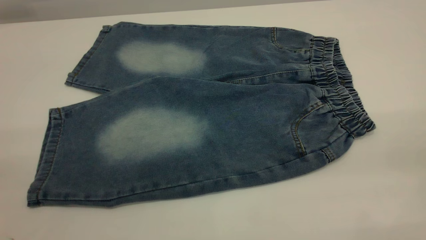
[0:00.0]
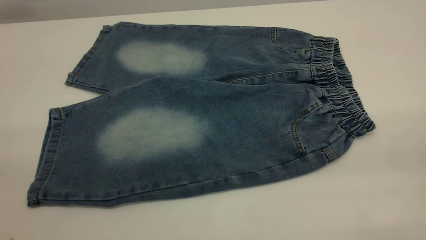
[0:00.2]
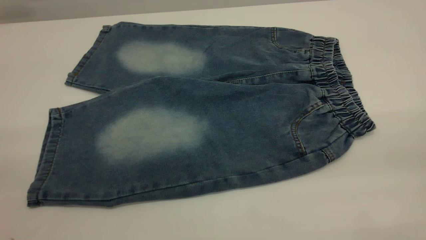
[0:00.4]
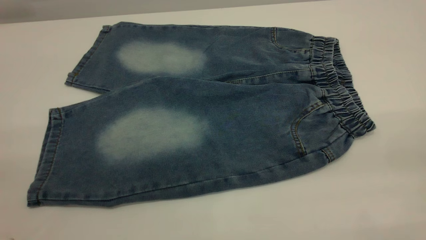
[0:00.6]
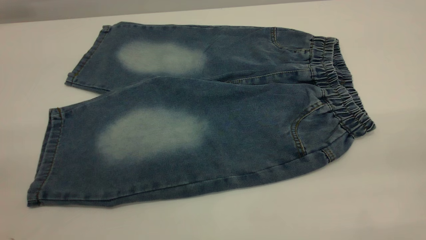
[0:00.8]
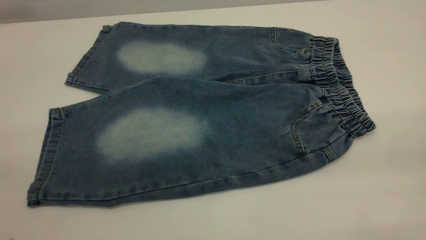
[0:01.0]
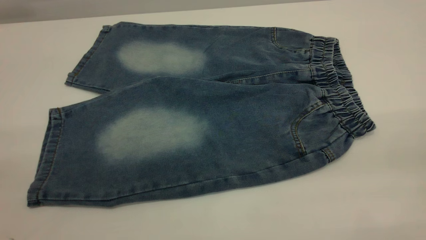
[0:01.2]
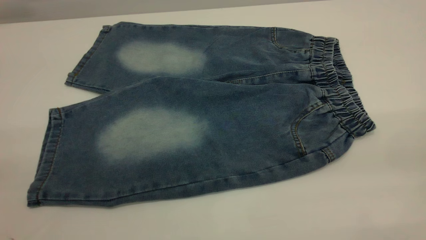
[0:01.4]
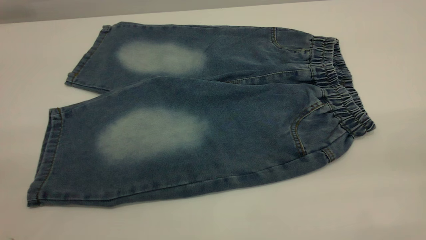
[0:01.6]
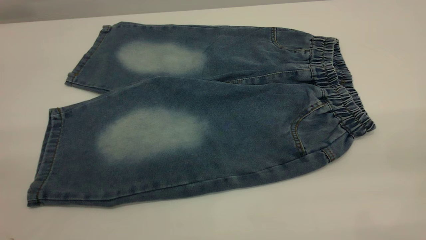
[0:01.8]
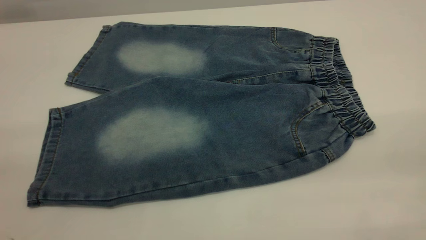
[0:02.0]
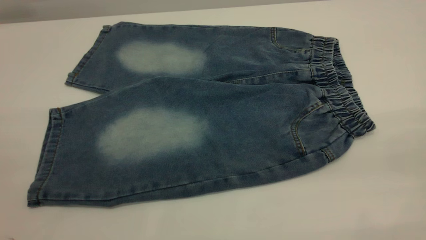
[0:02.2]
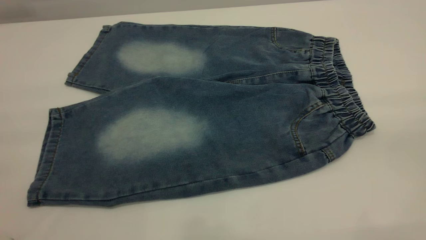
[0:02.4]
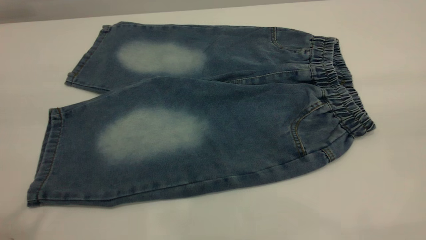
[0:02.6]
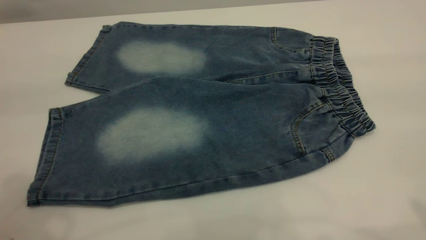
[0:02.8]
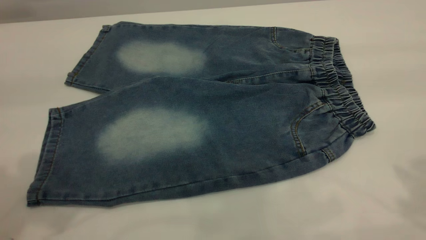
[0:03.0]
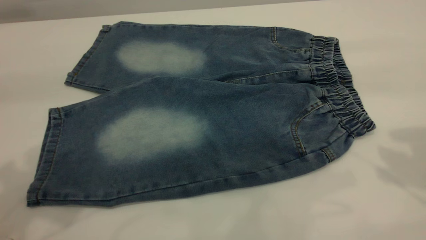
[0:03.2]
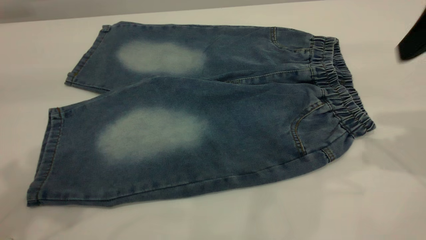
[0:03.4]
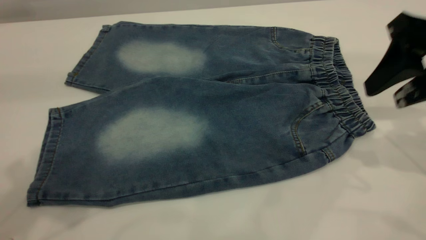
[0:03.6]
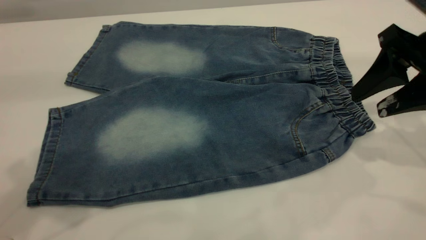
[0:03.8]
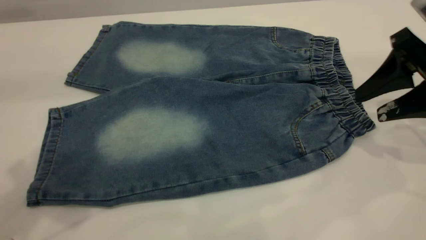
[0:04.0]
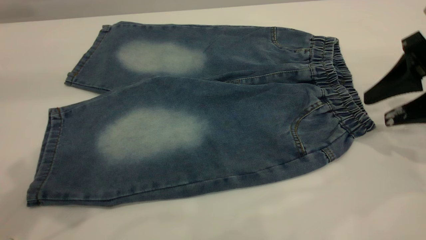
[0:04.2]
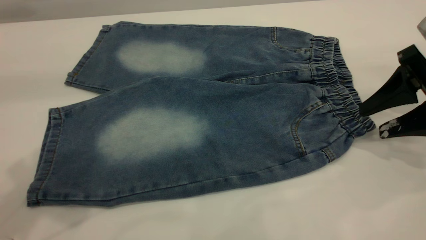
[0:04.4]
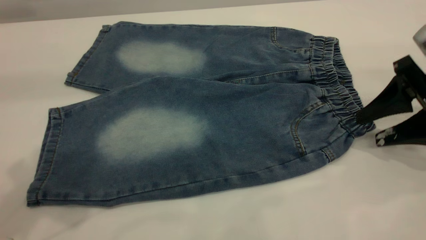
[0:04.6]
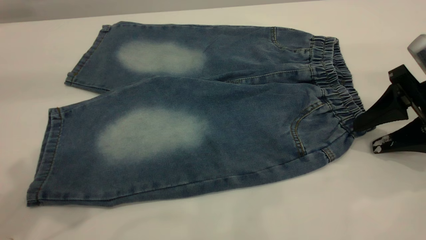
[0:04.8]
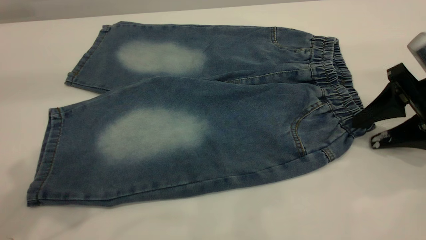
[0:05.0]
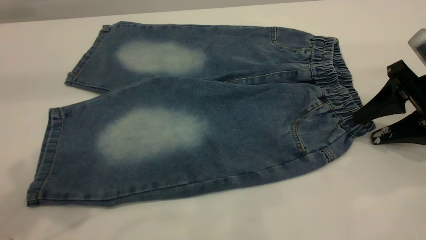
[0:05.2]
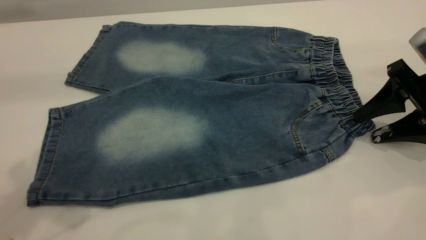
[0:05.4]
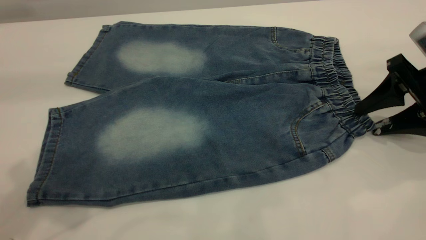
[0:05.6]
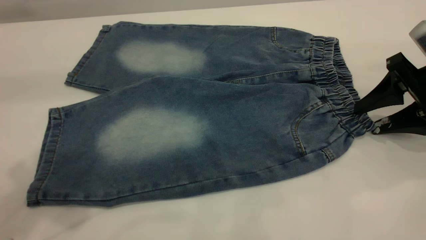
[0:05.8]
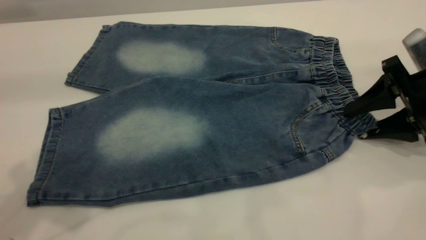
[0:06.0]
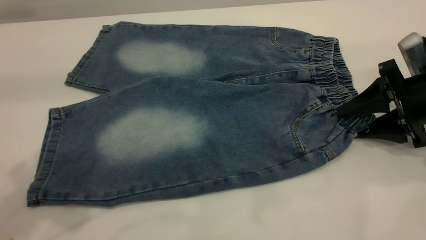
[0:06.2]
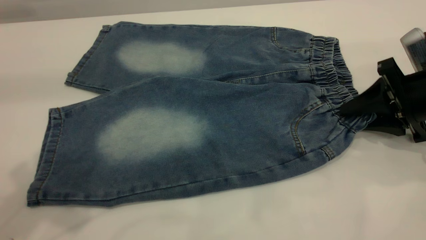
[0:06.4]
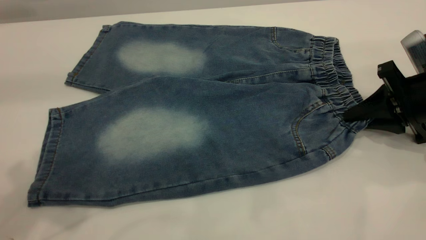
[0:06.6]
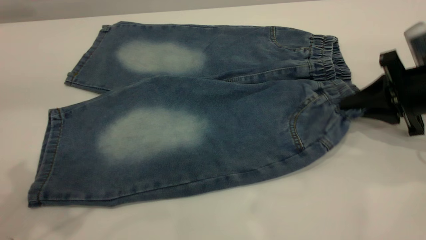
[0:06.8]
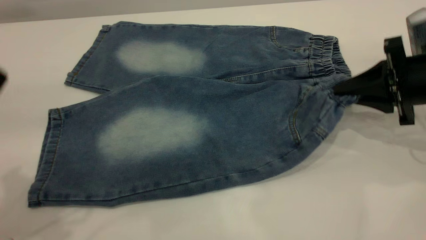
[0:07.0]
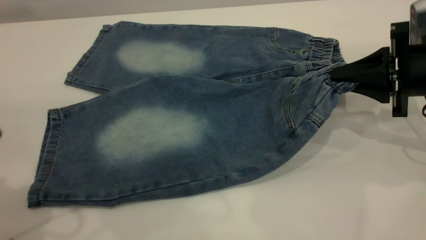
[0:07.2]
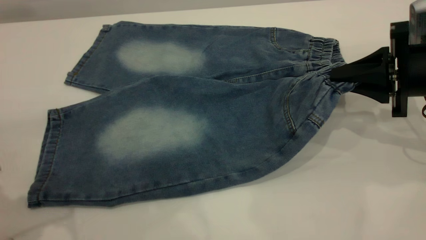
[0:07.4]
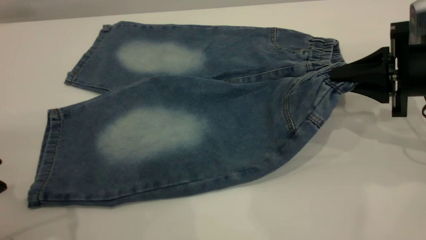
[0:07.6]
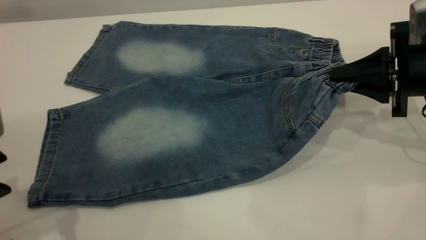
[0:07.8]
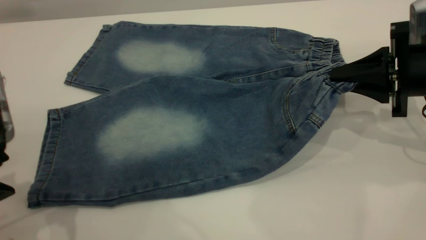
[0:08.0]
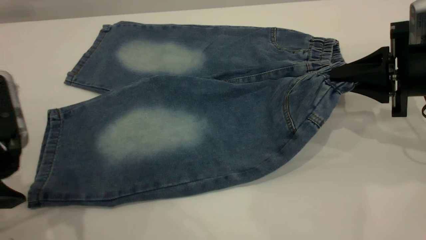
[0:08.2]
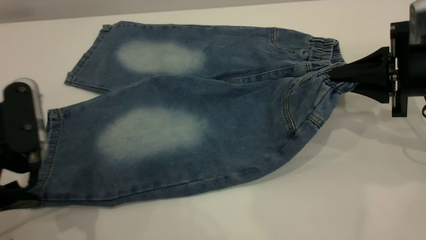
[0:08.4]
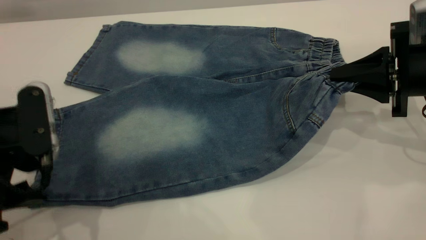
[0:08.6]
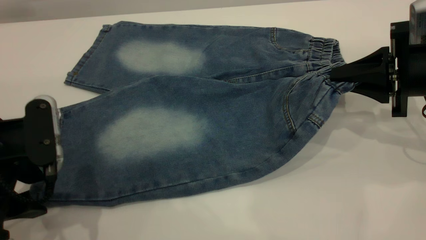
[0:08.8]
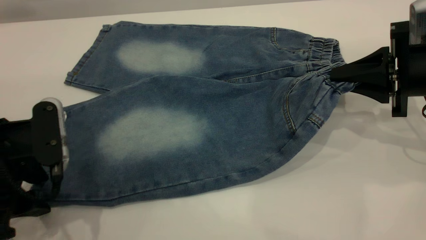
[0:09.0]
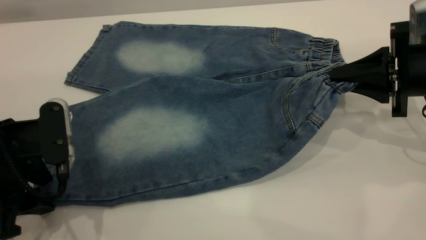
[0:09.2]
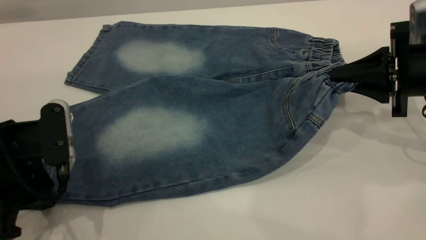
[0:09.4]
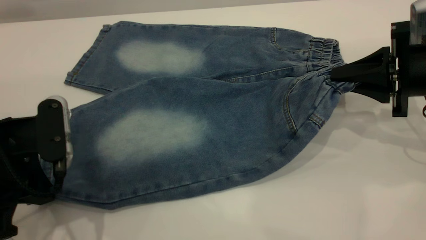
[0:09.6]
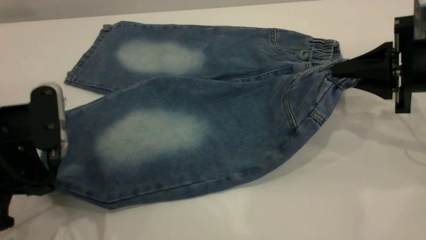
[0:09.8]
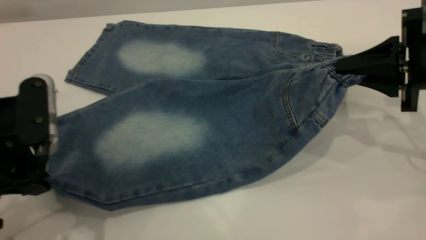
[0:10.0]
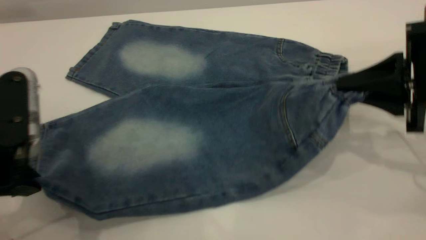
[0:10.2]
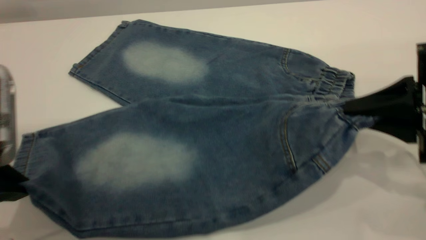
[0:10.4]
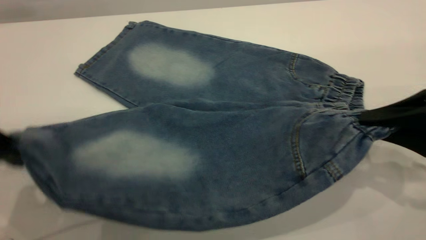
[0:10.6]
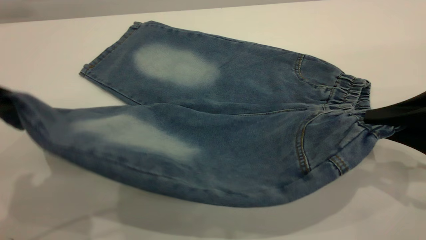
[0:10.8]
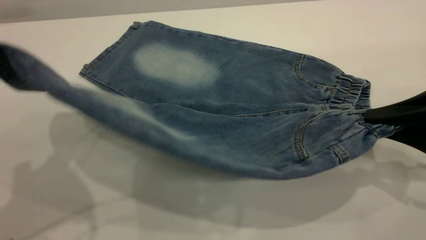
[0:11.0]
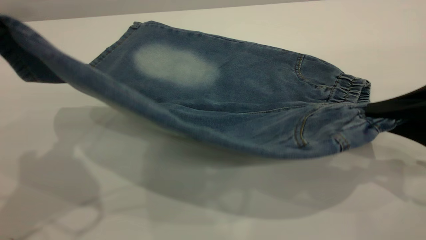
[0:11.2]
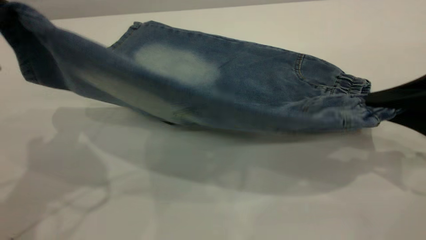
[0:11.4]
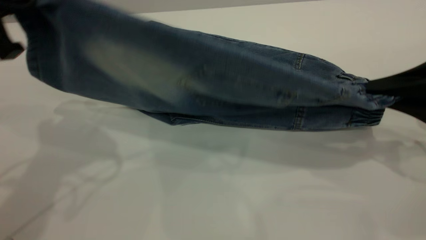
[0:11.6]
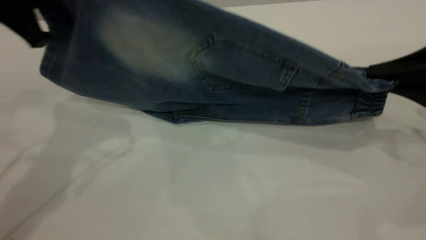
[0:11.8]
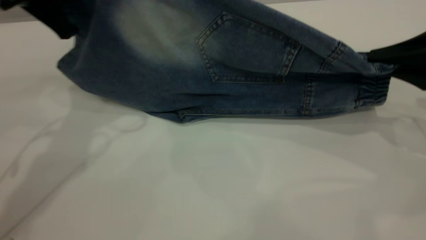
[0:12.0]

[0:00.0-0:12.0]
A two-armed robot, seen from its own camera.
0:00.0 to 0:01.6: Both grippers stay about where they are.
0:01.6 to 0:03.0: The left gripper is displaced forward by some 20 cm.
0:03.0 to 0:04.4: The right gripper heads downward and forward, covering about 25 cm.
0:04.4 to 0:06.0: The grippers make only small movements.
0:06.0 to 0:07.6: The left gripper shifts some 15 cm downward. Meanwhile the right gripper closes up.
0:07.6 to 0:09.0: The left gripper goes approximately 10 cm downward.
0:09.0 to 0:10.4: The left gripper heads upward, covering about 5 cm, and closes up; the right gripper moves backward, roughly 10 cm.
0:10.4 to 0:12.0: The left gripper moves forward, about 20 cm. Meanwhile the right gripper moves forward, approximately 5 cm.

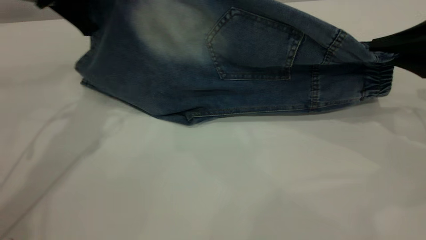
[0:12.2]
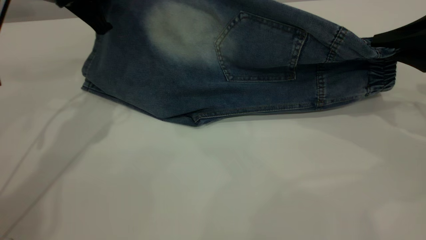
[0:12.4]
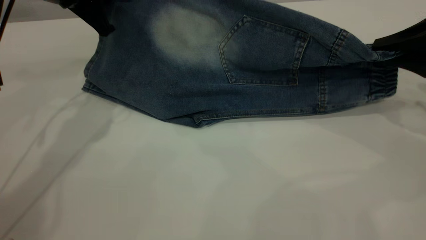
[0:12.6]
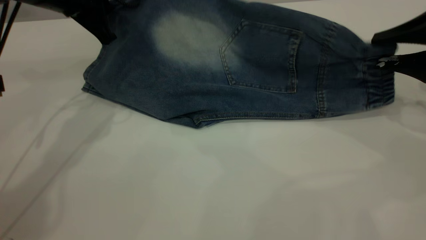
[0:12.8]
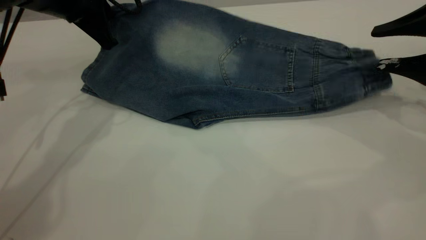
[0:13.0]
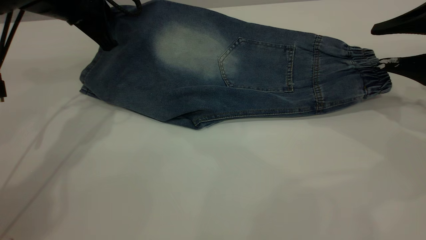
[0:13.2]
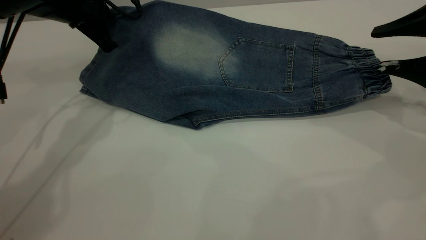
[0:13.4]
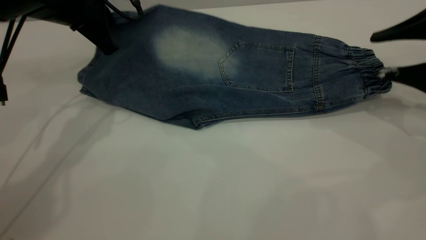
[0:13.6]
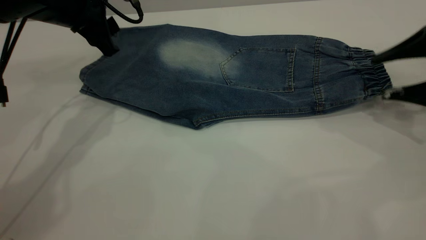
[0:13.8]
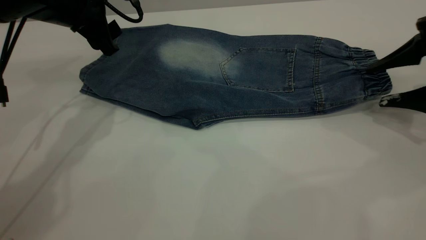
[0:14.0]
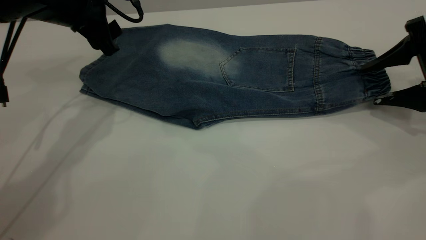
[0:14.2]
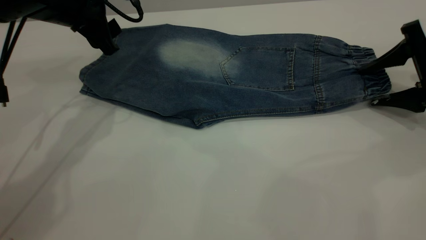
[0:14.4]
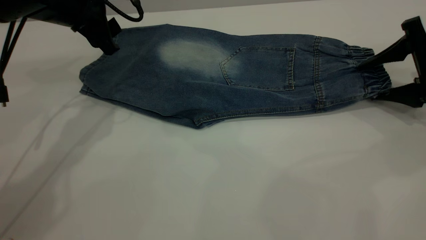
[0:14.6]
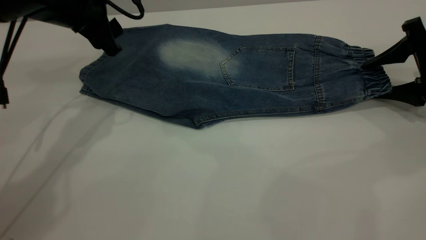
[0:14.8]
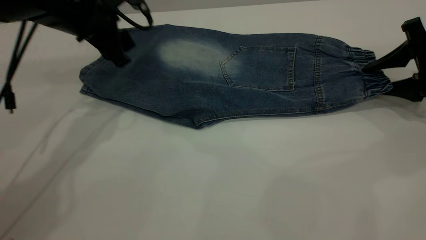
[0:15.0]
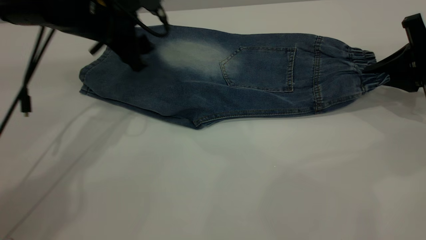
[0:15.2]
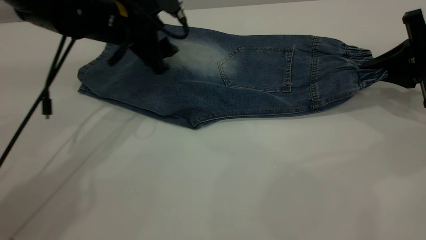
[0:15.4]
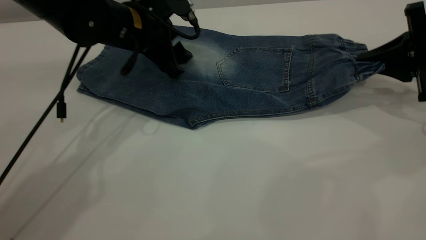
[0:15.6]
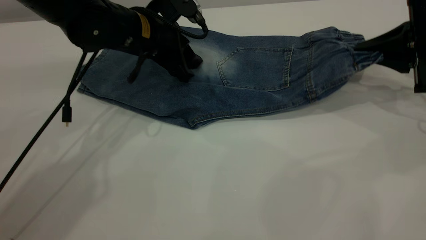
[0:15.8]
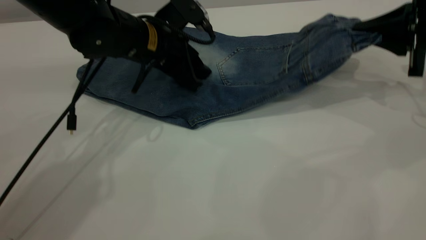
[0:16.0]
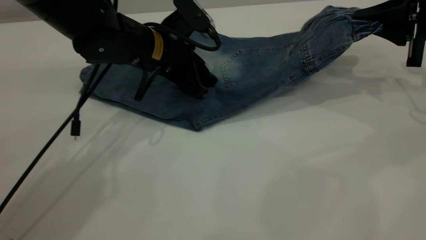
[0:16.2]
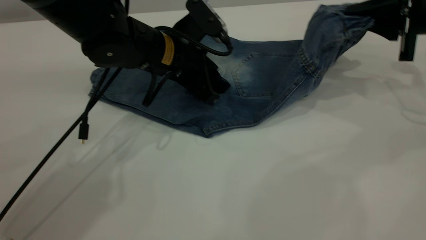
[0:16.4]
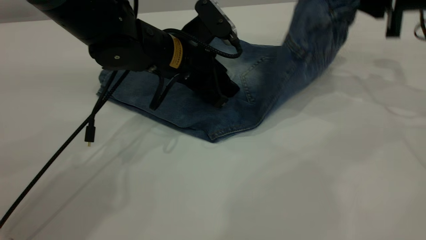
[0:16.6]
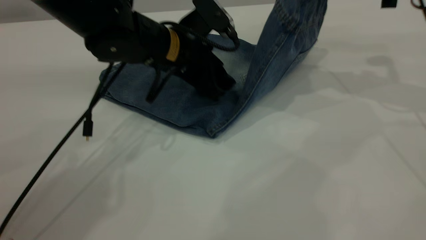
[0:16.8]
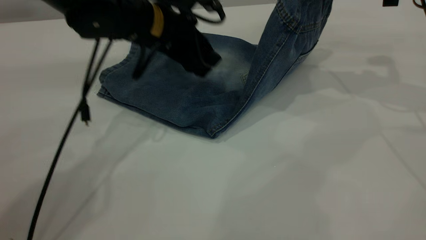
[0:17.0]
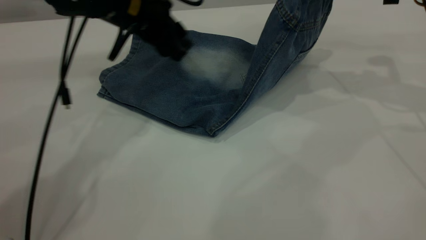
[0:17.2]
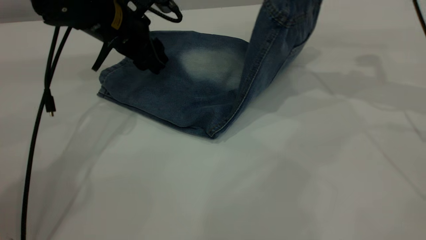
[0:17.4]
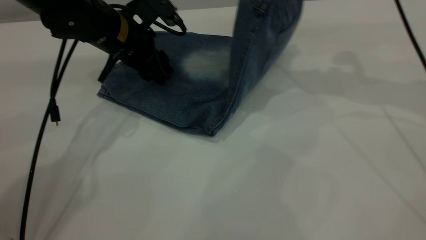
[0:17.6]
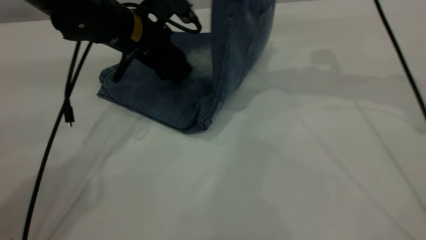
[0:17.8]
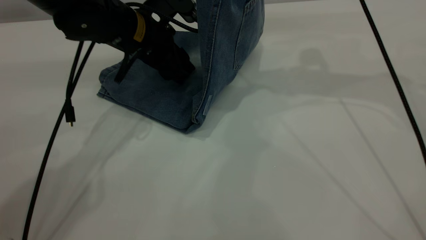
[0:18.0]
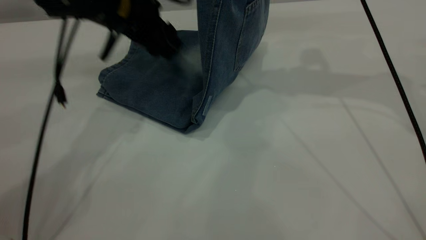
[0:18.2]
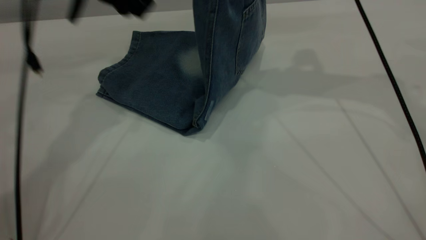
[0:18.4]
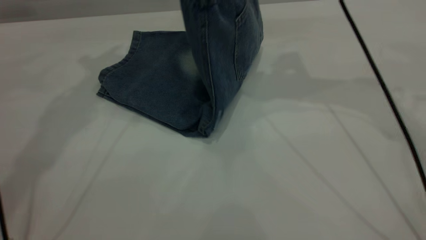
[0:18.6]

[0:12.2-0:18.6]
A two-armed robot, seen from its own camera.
Step, 0:12.2 to 0:14.4: Fold the bottom of the pants upward.
0:12.2 to 0:13.8: The left gripper ends up approximately 5 cm from where it was, and opens its fingers. Meanwhile the right gripper opens up.
0:13.8 to 0:15.4: The right gripper closes up; the left gripper goes some 5 cm to the right.
0:15.4 to 0:17.0: The right gripper travels upward and to the left by about 15 cm.
0:17.0 to 0:18.6: The right gripper heads to the left, covering about 15 cm, while the left gripper travels upward and to the left by approximately 20 cm.
